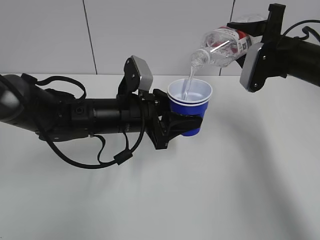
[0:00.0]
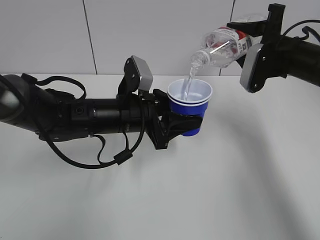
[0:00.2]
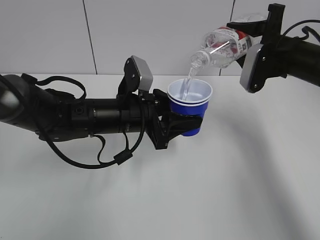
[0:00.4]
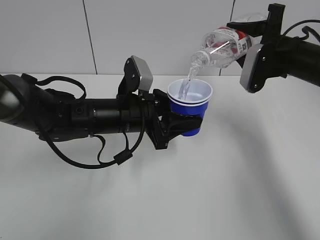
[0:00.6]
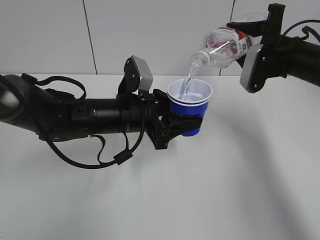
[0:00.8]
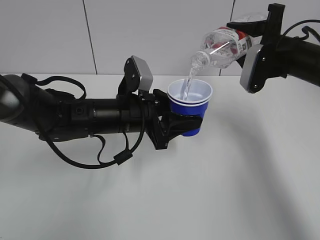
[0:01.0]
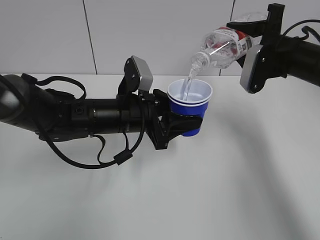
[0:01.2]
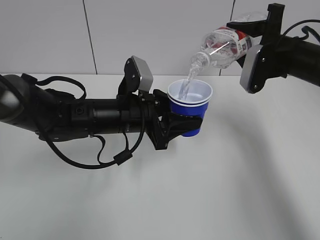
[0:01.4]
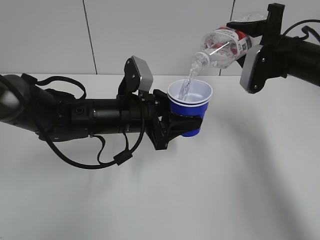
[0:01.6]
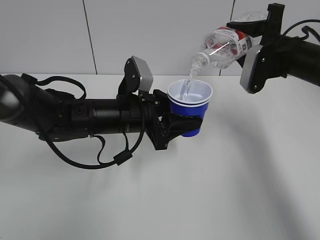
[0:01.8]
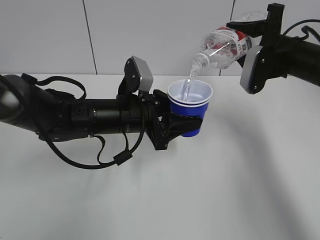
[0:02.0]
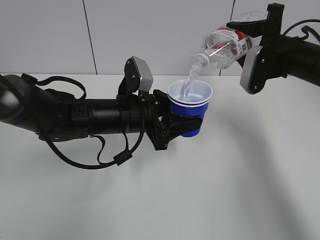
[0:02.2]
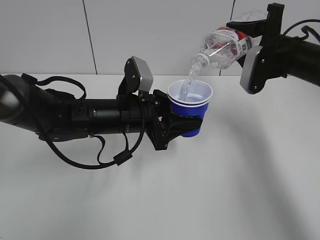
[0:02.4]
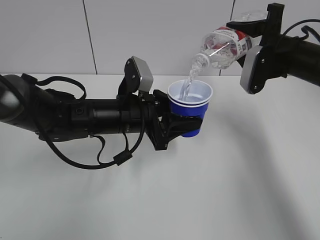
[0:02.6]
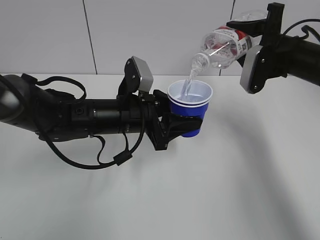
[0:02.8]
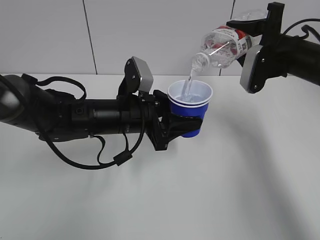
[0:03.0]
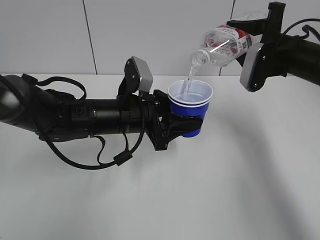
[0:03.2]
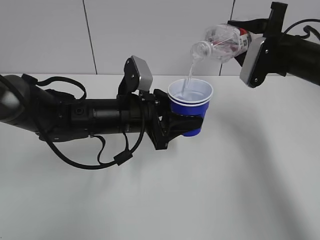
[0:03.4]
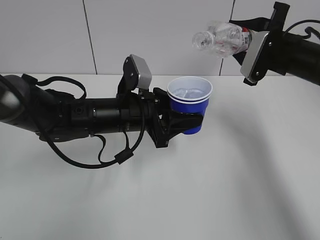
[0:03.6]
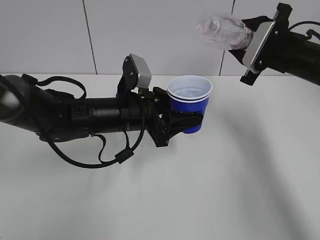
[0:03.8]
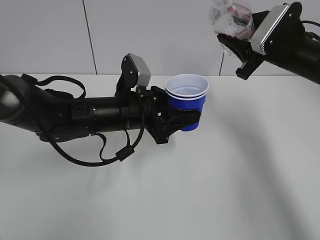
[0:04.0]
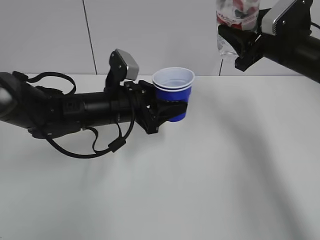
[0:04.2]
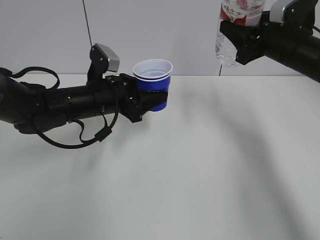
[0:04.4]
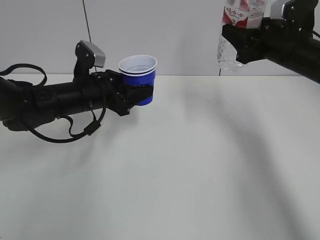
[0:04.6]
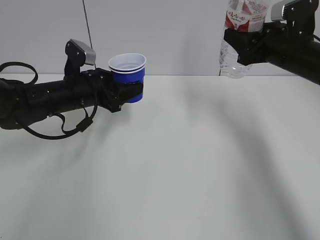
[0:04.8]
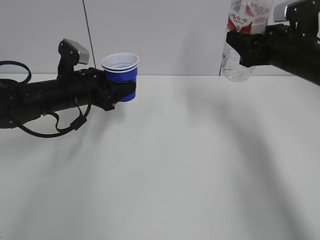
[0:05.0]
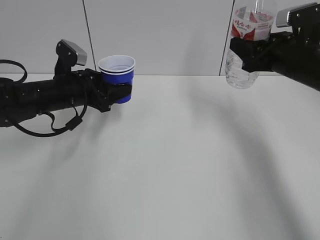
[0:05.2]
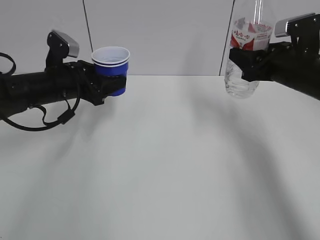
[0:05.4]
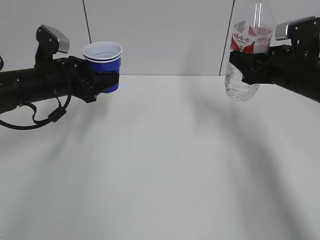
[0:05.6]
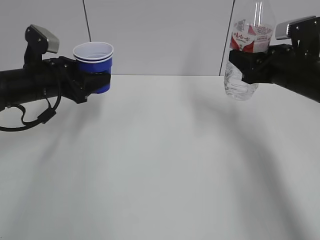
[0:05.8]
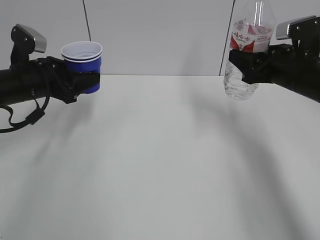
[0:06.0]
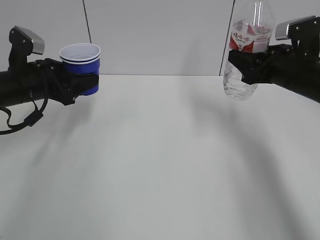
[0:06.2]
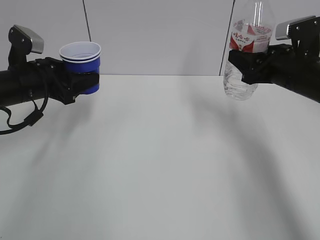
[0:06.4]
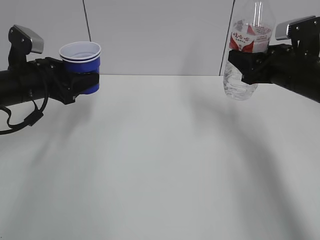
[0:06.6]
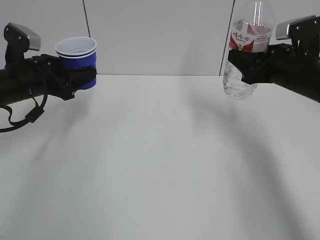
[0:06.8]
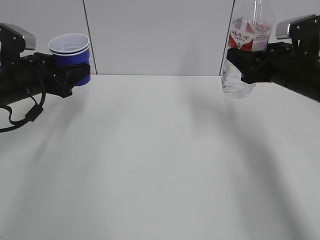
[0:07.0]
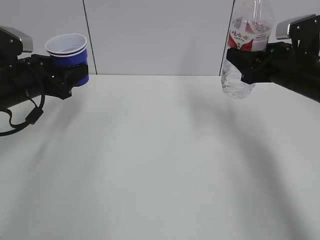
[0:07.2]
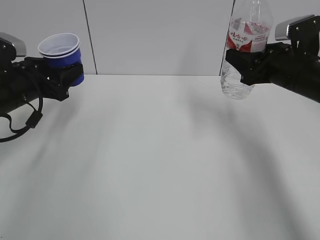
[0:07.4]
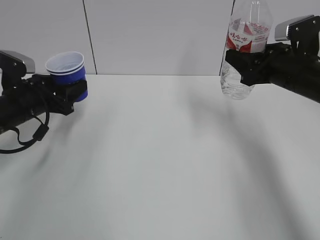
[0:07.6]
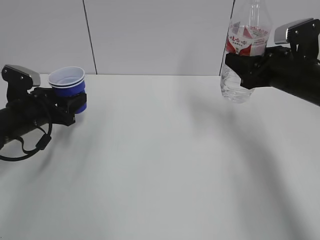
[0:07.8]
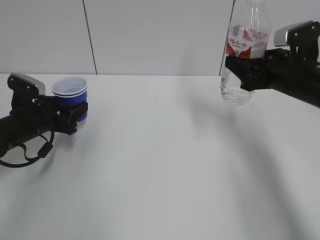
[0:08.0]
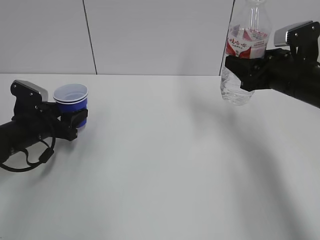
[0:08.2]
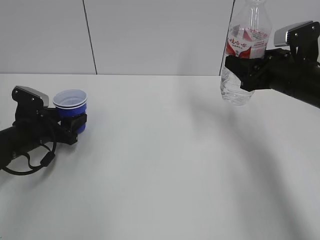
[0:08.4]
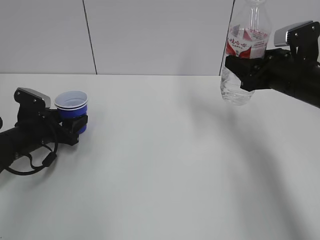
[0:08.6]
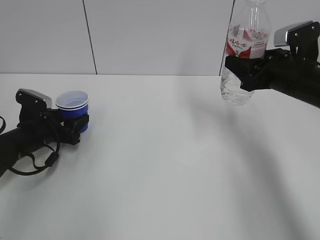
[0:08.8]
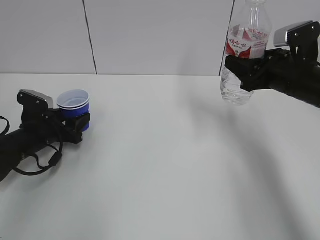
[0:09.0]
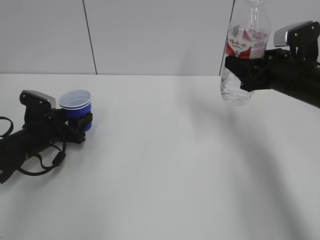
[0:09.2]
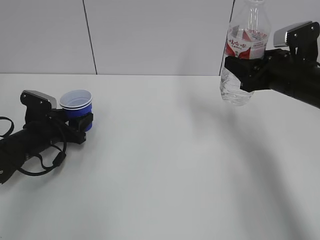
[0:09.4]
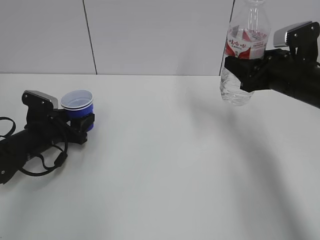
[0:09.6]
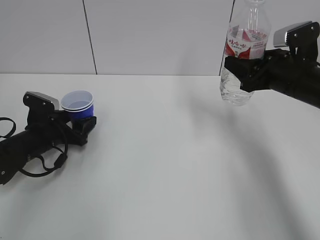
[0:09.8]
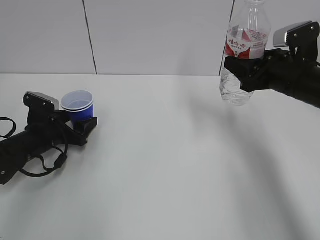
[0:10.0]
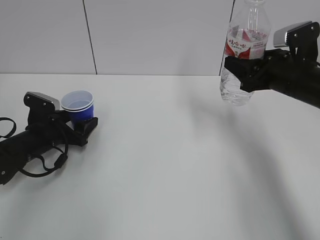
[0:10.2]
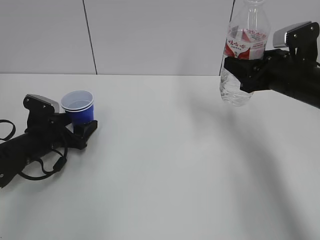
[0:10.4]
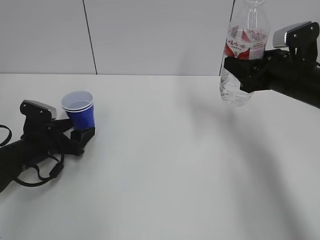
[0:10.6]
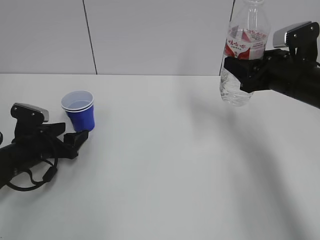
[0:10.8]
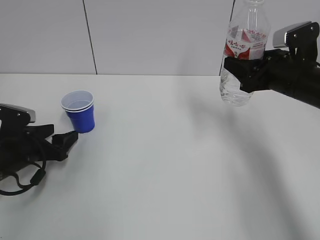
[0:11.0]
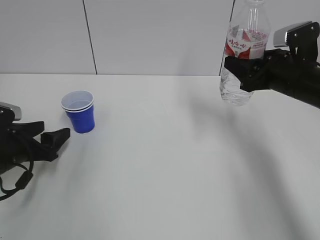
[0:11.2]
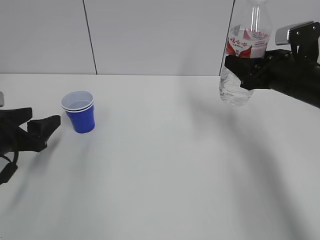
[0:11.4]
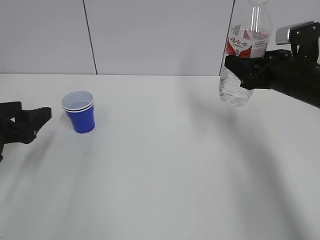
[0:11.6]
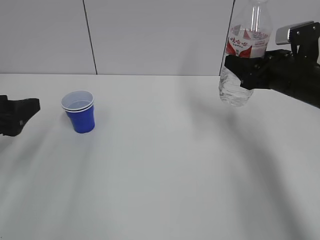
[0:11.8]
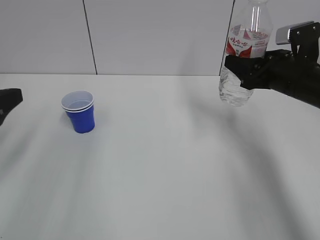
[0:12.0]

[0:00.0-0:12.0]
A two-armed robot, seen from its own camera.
Step, 0:00.0 to 0:03.8: Fill water with the left hand.
Step, 0:00.0 to 0:03.8: Pour water with the right hand.
Step, 0:04.0 to 0:04.8: Collect water with the right hand.
Step, 0:05.0 to 0:10.8: Place the paper cup with the left hand.
0:00.0 to 0:03.0: Both grippers stay about where they are.
0:03.0 to 0:04.4: The left gripper moves some 5 cm.
0:04.4 to 0:06.0: The left gripper heads to the left, covering approximately 10 cm.
0:06.0 to 0:07.6: The grippers stay close to where they were, moving slightly.
0:07.6 to 0:09.0: The left gripper goes approximately 10 cm downward.
0:09.0 to 0:10.4: The left gripper opens up.
0:10.4 to 0:12.0: The left gripper is displaced upward and backward by some 25 cm.

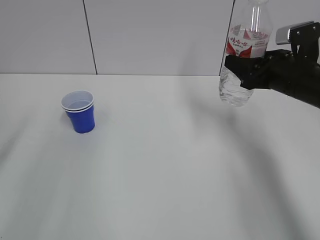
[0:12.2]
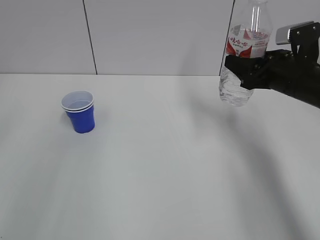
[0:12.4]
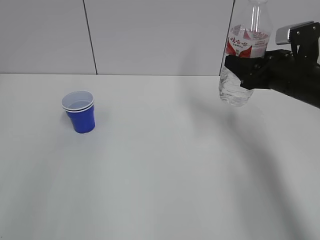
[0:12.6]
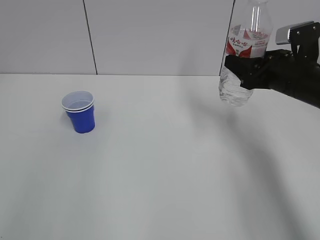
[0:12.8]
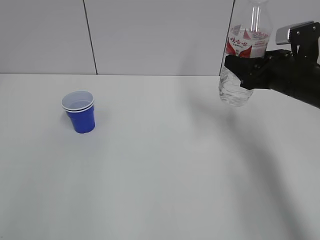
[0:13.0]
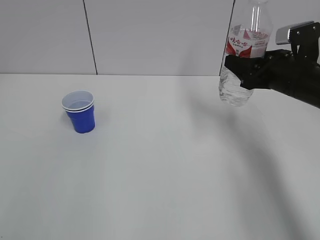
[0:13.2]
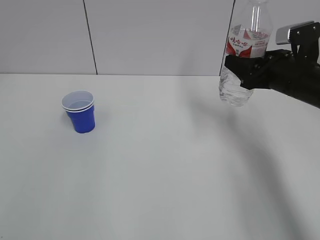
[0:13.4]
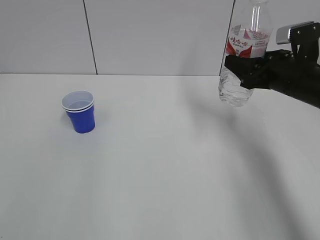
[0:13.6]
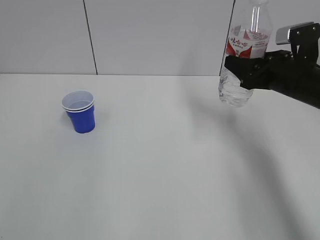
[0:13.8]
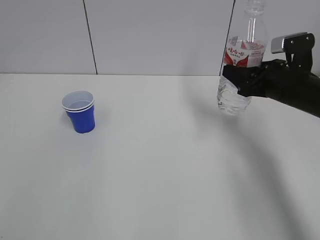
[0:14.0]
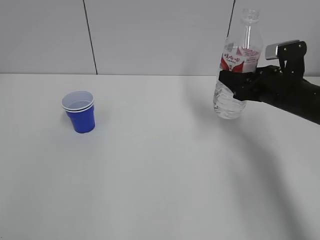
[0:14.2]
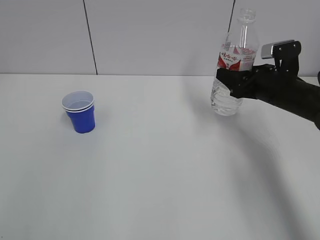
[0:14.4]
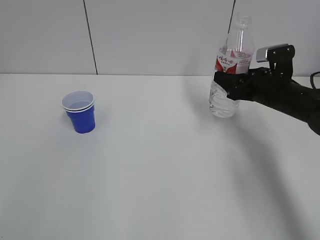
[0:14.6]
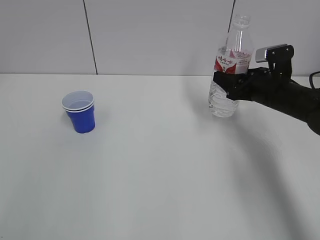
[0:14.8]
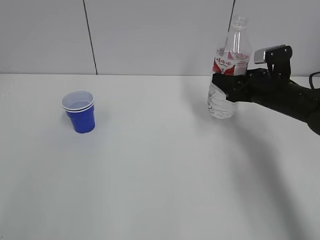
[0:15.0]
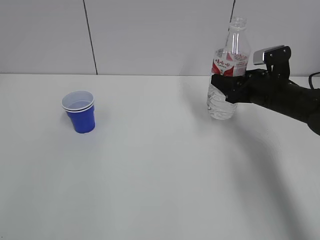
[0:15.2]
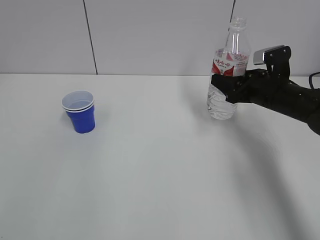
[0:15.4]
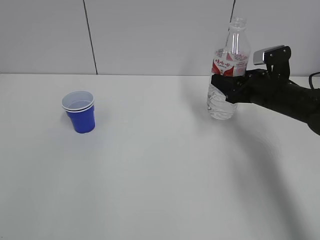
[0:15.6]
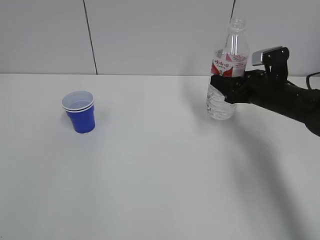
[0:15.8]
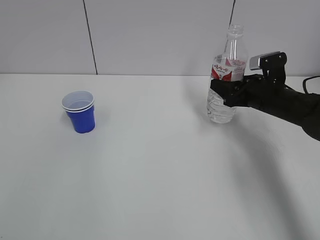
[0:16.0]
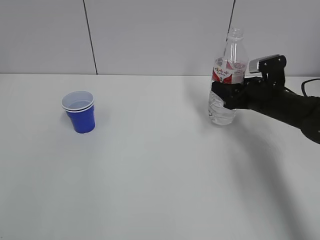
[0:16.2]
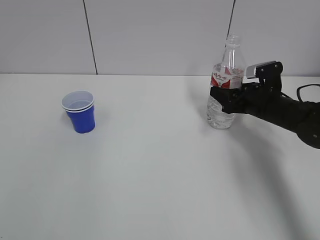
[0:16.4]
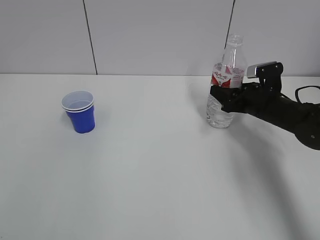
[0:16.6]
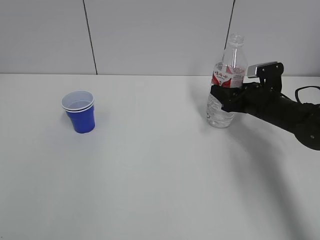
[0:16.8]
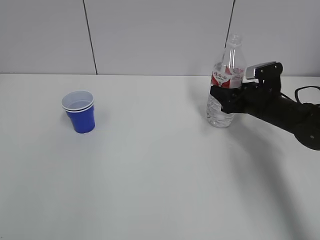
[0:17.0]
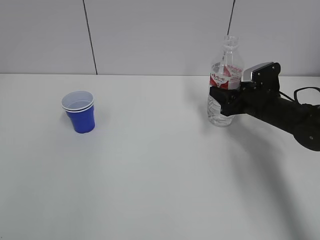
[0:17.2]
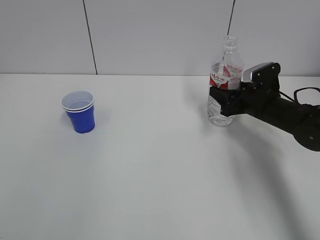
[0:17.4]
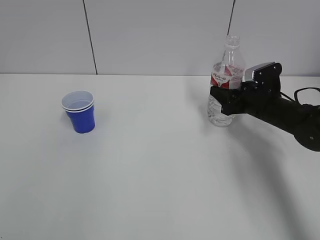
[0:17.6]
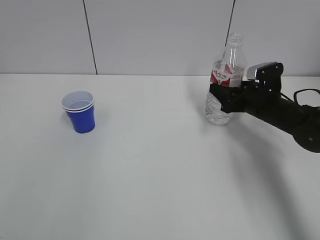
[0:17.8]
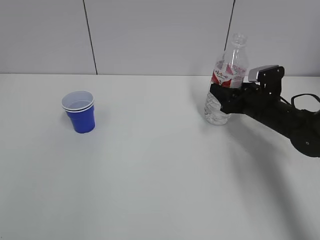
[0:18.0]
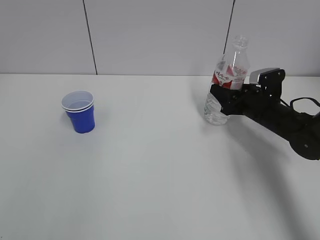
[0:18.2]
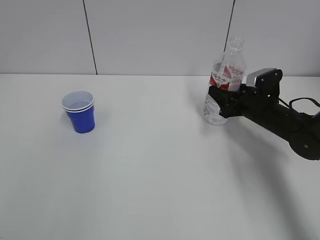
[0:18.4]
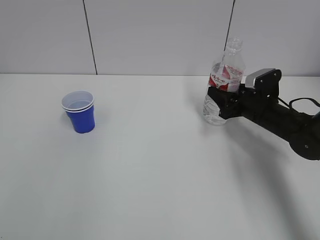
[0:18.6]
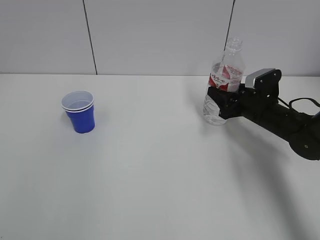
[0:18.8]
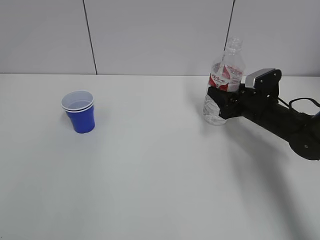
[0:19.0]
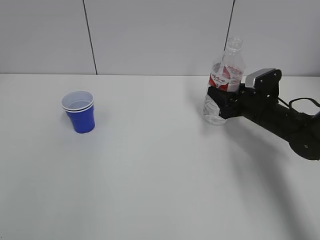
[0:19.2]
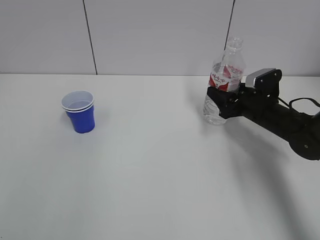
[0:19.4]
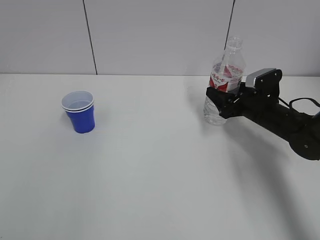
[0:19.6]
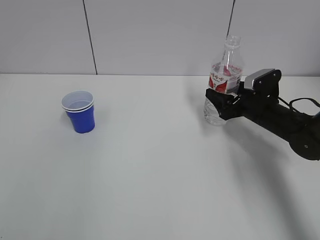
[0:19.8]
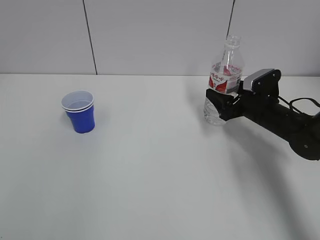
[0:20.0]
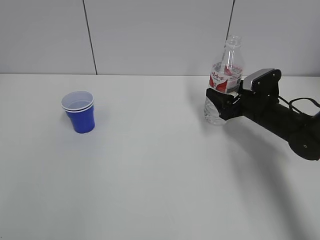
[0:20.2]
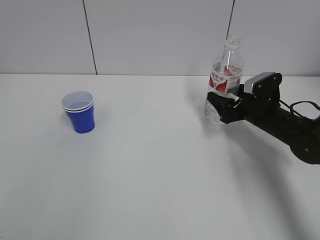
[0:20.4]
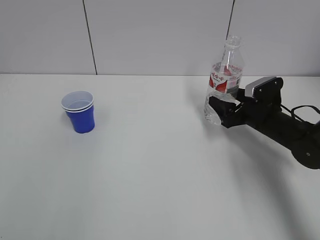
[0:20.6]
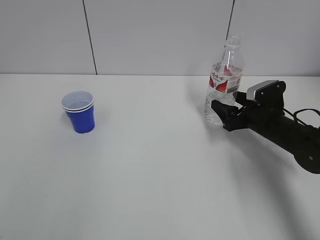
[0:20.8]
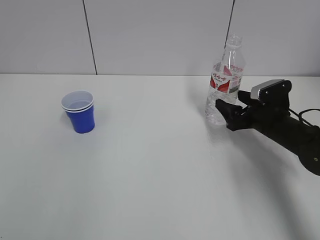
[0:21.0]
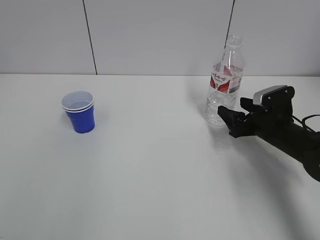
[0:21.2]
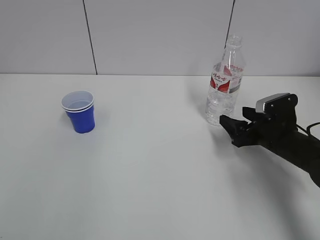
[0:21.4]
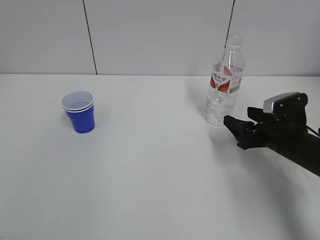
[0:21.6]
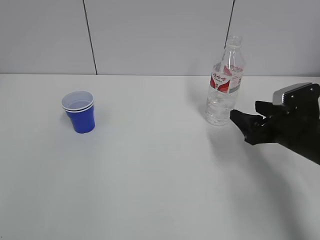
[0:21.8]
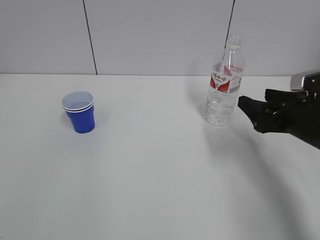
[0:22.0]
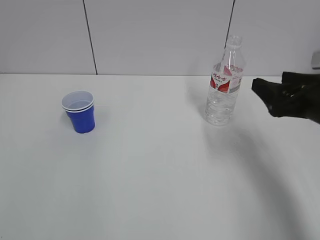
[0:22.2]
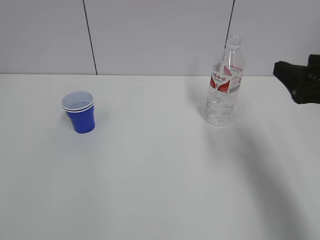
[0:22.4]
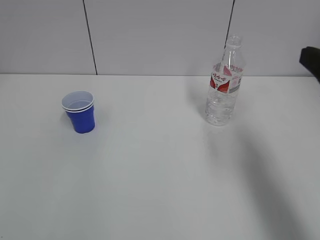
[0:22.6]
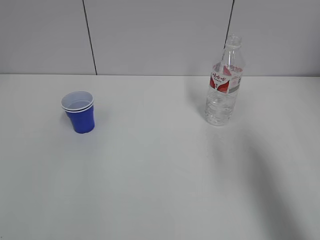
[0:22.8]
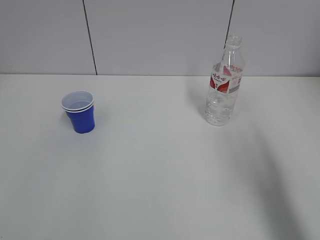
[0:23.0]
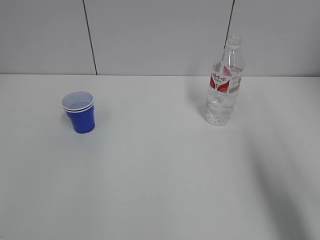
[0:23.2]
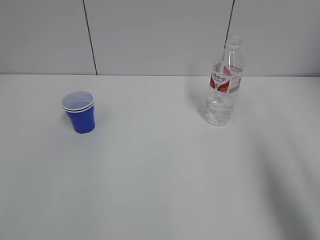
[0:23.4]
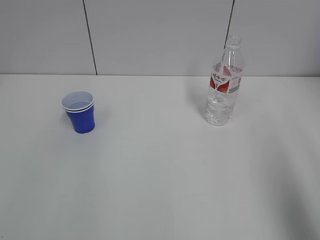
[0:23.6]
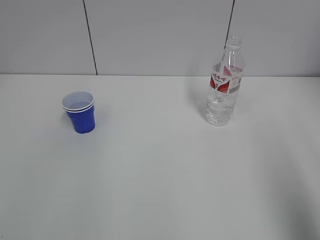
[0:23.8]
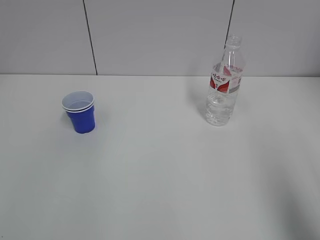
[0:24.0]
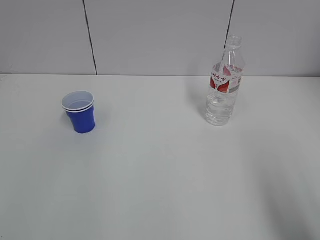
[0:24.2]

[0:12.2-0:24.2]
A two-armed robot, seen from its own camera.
Step, 0:12.2 to 0:21.0: Place the water bottle with the right hand.
0:13.8 to 0:15.2: The right gripper travels downward by some 5 cm.
0:15.2 to 0:18.2: The grippers move only a little.
0:18.2 to 0:19.8: The right gripper opens its fingers.
0:19.8 to 0:21.2: The grippers move only a little.
0:21.2 to 0:22.6: The right gripper shifts roughly 25 cm upward and backward.
0:22.6 to 0:24.2: The right gripper travels backward by about 15 cm.
